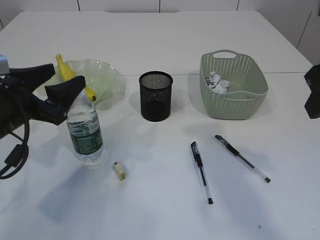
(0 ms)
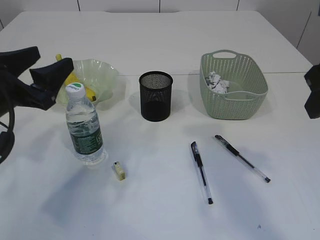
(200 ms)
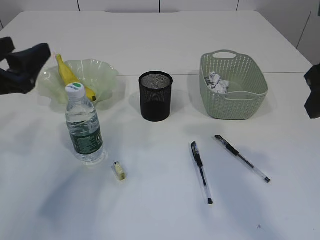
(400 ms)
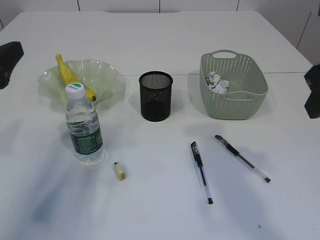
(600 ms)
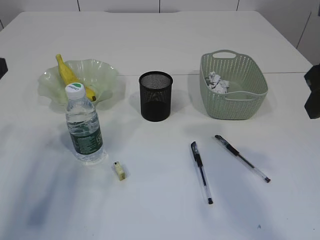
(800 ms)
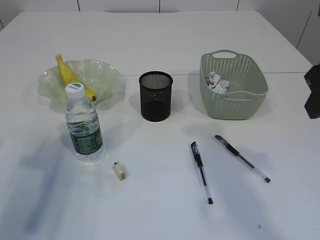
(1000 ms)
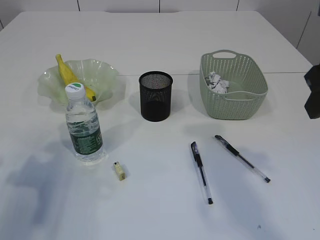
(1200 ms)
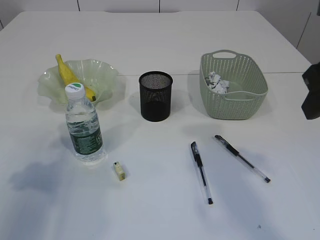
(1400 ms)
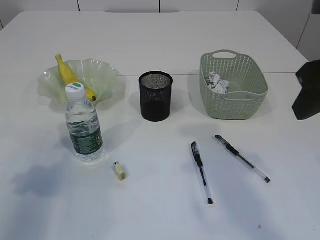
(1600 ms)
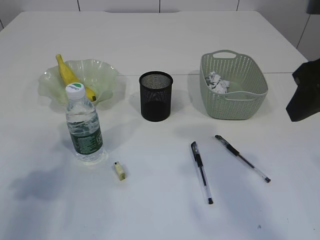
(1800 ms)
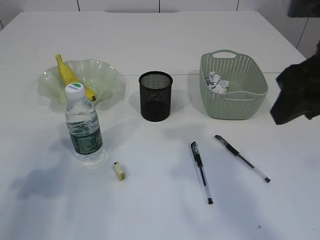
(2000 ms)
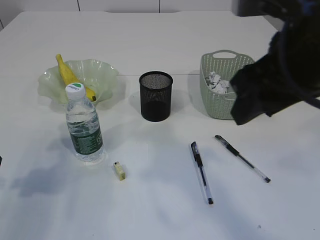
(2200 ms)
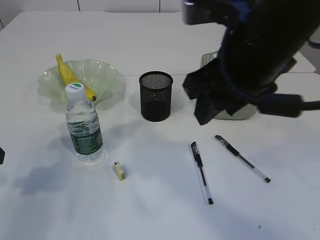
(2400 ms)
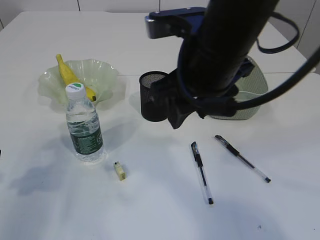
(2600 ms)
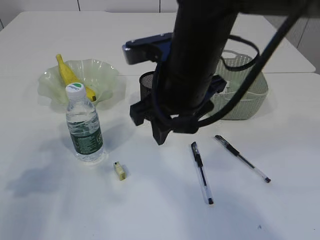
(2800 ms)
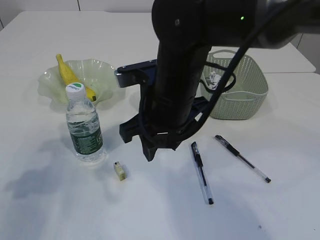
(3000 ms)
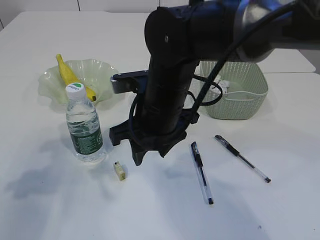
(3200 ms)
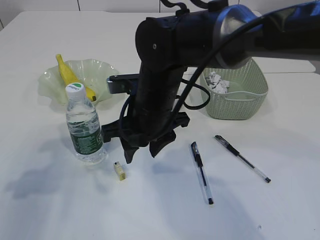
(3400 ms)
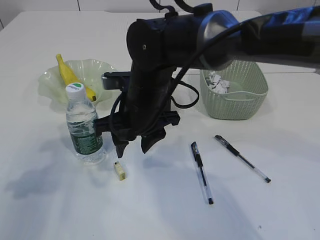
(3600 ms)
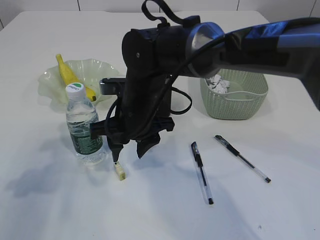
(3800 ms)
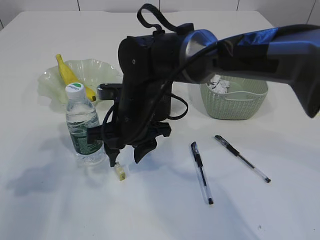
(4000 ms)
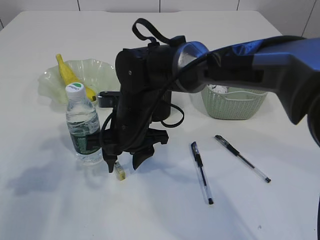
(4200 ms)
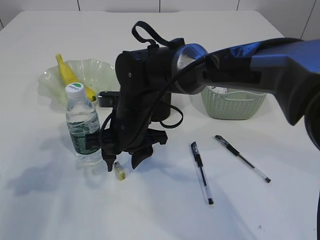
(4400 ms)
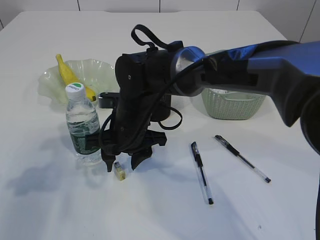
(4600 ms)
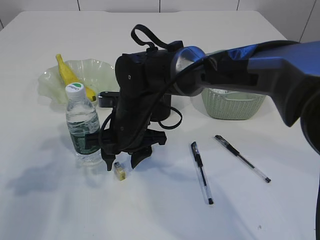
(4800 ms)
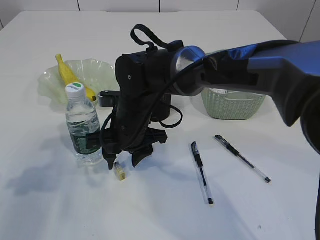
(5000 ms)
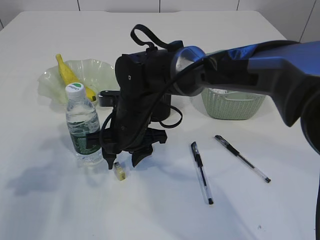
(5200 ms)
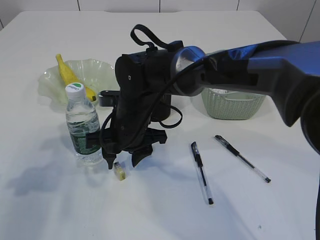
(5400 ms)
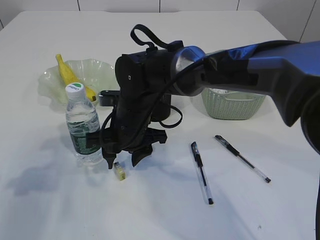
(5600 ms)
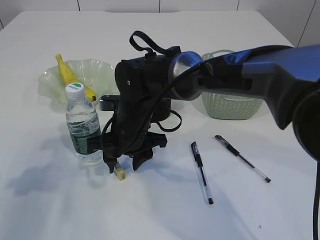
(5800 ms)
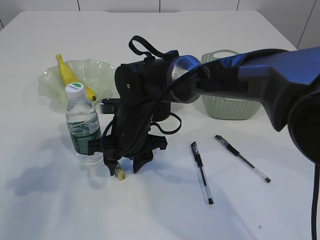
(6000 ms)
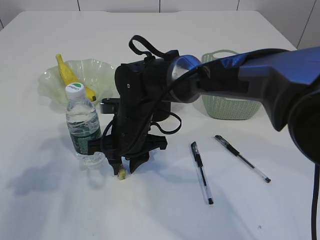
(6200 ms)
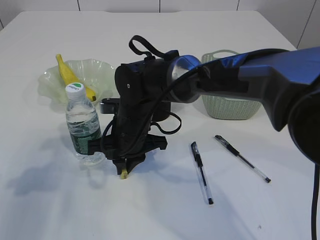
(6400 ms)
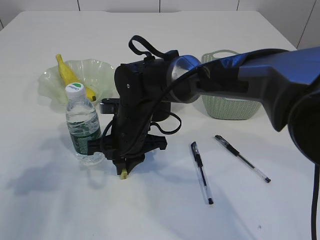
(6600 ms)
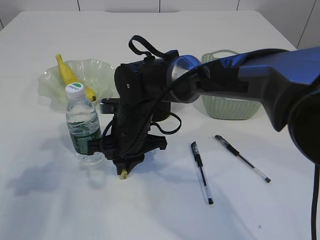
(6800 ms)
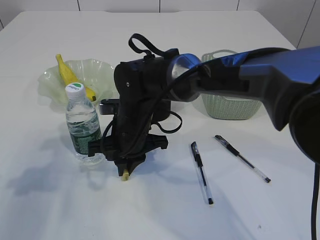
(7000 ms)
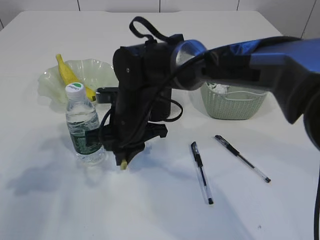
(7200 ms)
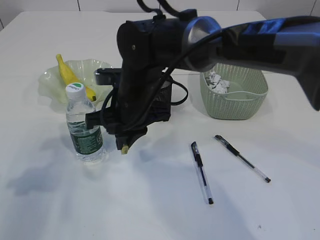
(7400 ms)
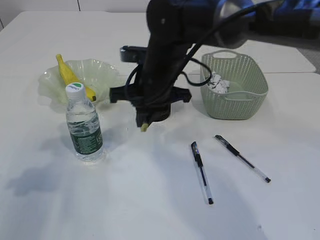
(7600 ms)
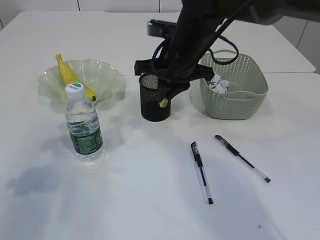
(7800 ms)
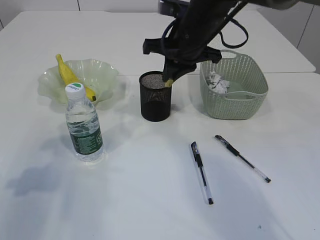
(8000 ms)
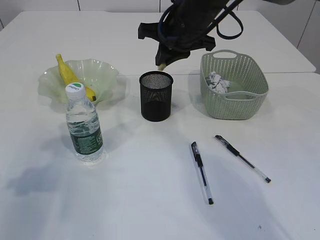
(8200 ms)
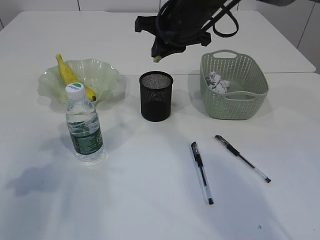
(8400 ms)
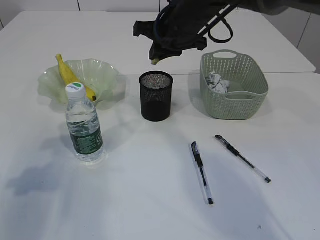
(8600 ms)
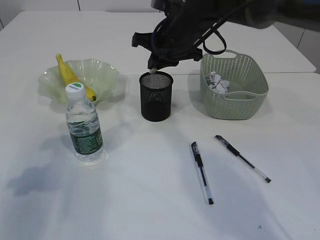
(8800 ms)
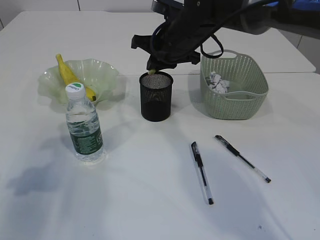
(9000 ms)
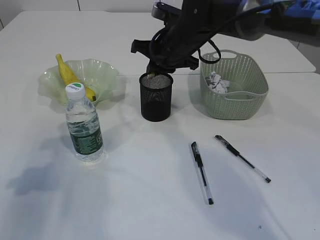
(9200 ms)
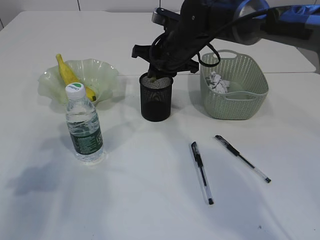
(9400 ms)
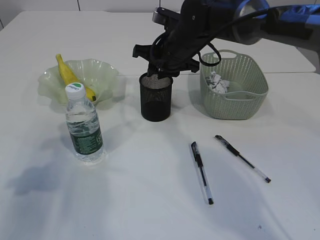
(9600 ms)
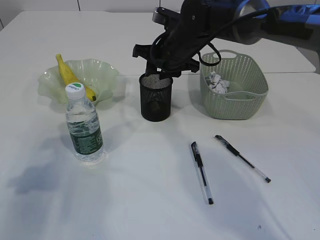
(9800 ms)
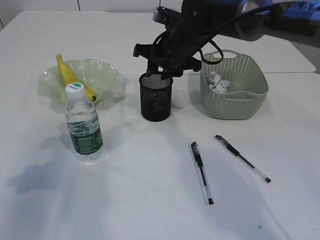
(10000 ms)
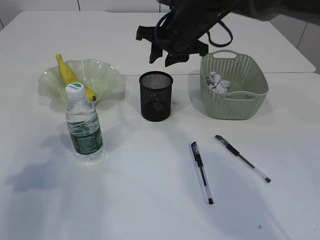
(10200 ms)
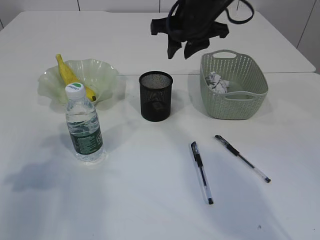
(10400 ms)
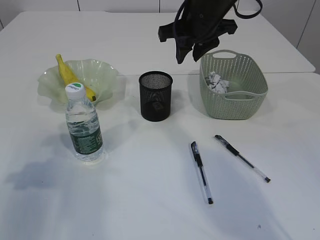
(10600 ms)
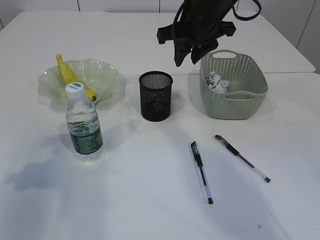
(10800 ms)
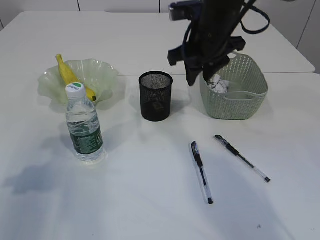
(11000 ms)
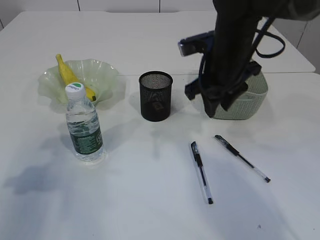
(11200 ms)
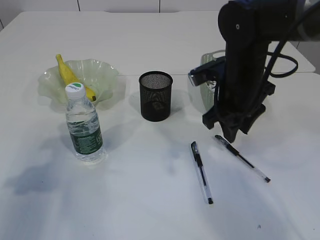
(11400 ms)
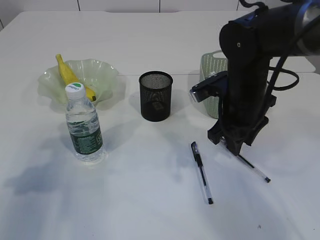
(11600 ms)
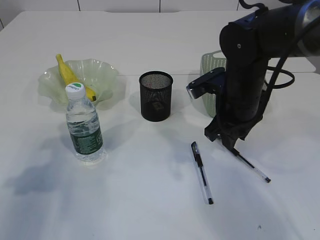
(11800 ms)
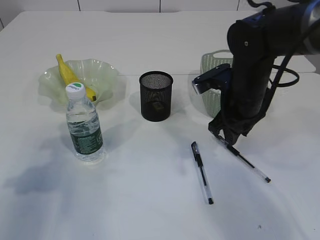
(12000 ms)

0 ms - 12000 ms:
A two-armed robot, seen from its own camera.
Step, 0 ms - 7400 ms: Pick up the eraser.
Step, 7600 ms - 10200 ms: Place the eraser into the pen holder.
0 ms - 1600 ms: The left gripper heads to the left, backward and upward, covering roughly 10 cm.
1600 ms - 3000 ms: The right gripper shifts approximately 25 cm to the left, downward and forward.
3000 ms - 4400 ms: The right gripper heads downward and to the left, covering roughly 10 cm.
4400 ms - 6000 ms: The grippers make only small movements.
6000 ms - 7600 ms: The right gripper heads upward, covering roughly 10 cm, and closes up.
7600 ms - 9000 ms: The right gripper goes some 10 cm forward and to the right.
9000 ms - 10400 ms: The right gripper heads upward, covering approximately 5 cm, and opens up.
10400 ms - 12000 ms: The right gripper heads downward, backward and to the right, covering some 15 cm.

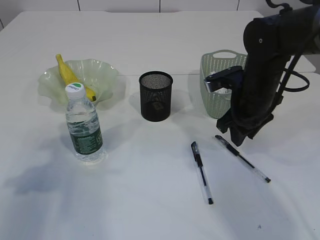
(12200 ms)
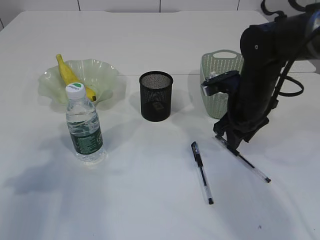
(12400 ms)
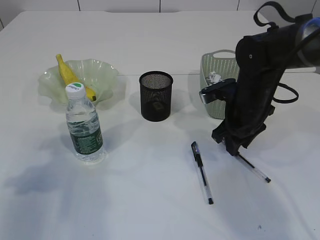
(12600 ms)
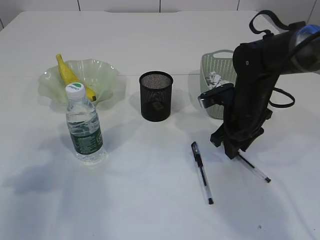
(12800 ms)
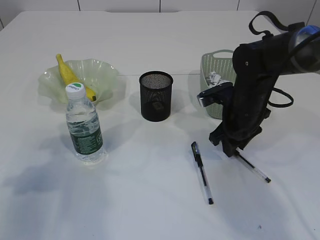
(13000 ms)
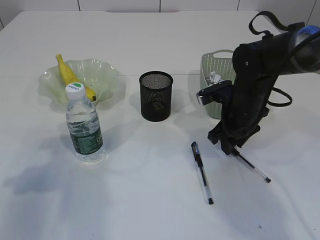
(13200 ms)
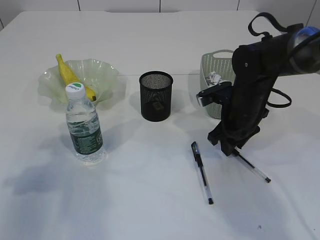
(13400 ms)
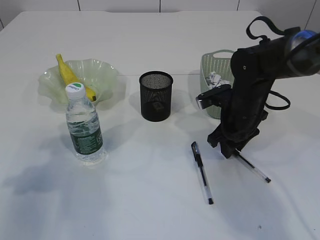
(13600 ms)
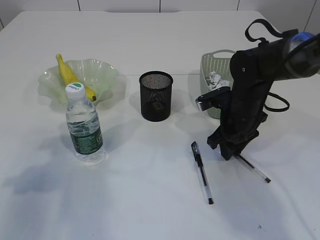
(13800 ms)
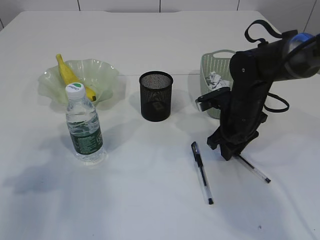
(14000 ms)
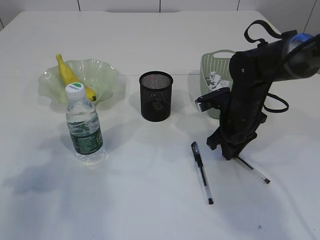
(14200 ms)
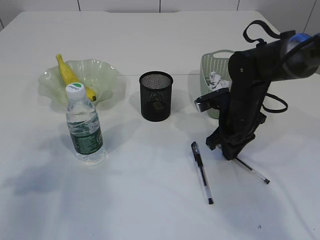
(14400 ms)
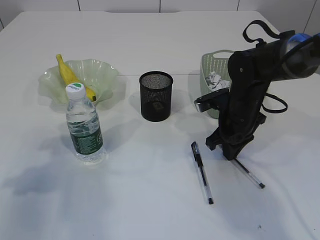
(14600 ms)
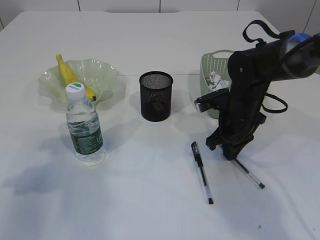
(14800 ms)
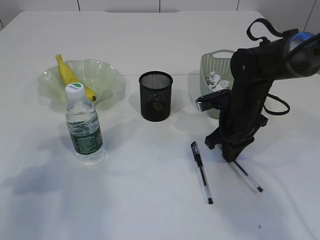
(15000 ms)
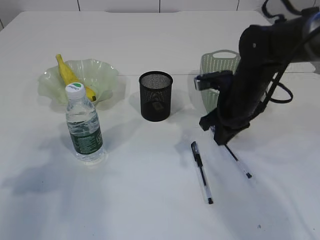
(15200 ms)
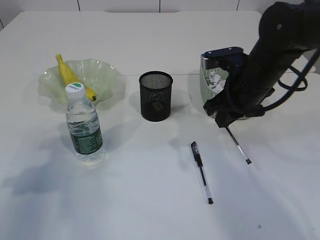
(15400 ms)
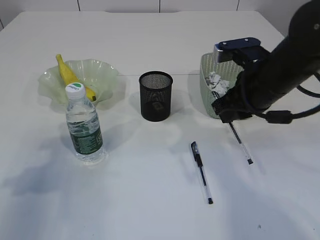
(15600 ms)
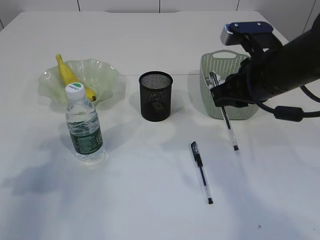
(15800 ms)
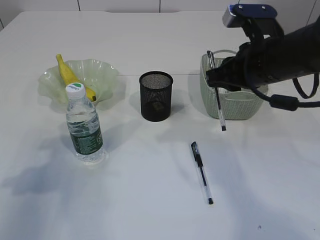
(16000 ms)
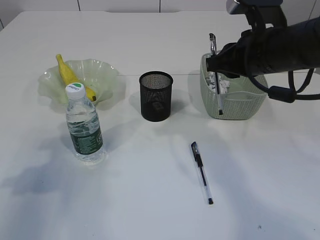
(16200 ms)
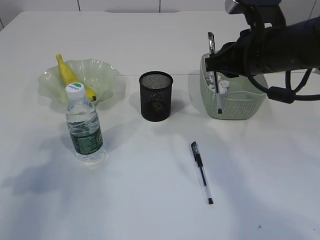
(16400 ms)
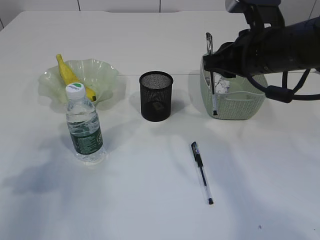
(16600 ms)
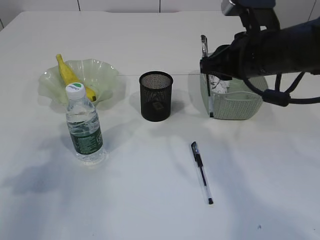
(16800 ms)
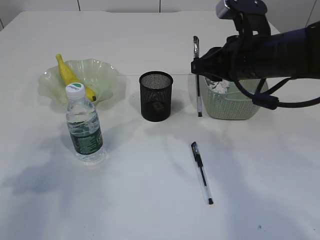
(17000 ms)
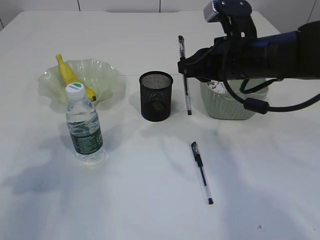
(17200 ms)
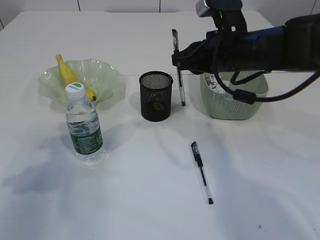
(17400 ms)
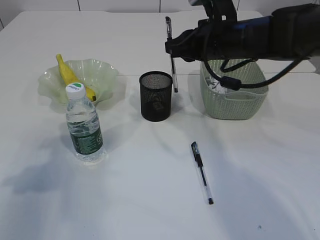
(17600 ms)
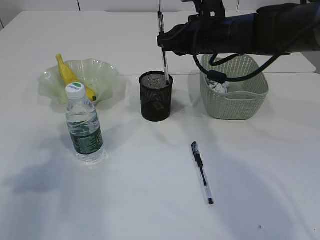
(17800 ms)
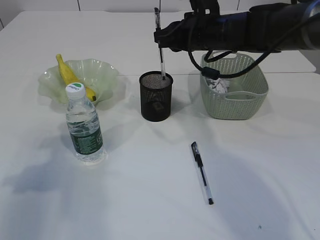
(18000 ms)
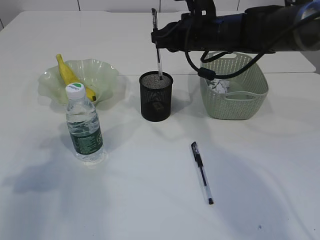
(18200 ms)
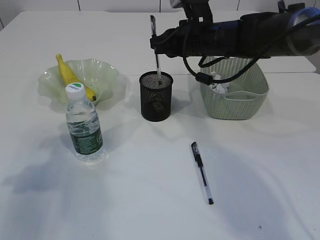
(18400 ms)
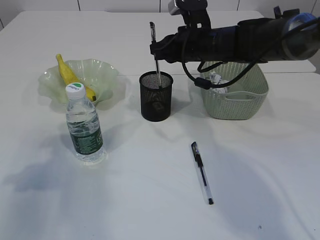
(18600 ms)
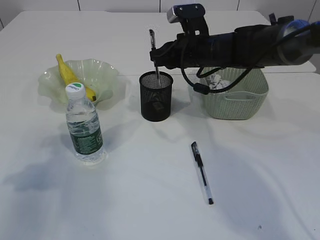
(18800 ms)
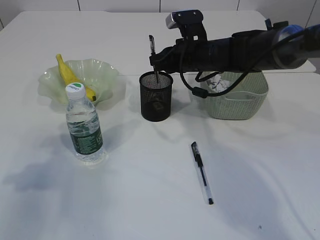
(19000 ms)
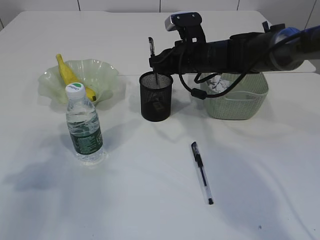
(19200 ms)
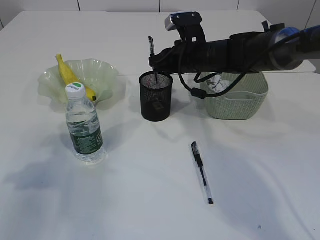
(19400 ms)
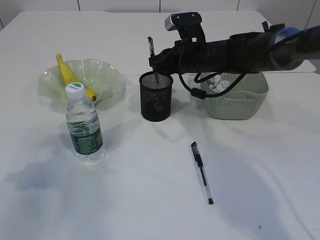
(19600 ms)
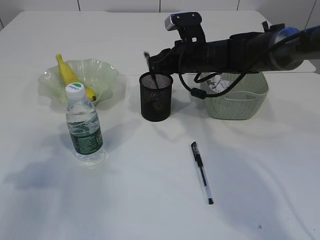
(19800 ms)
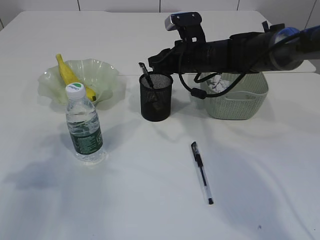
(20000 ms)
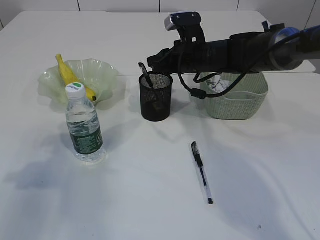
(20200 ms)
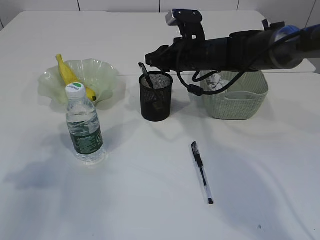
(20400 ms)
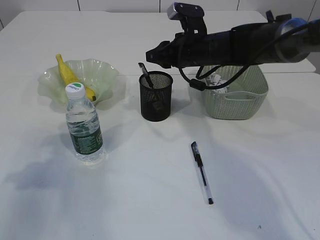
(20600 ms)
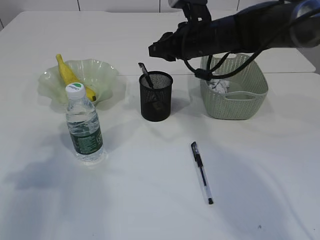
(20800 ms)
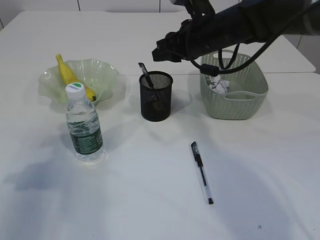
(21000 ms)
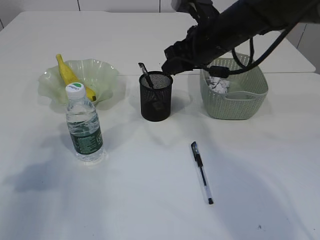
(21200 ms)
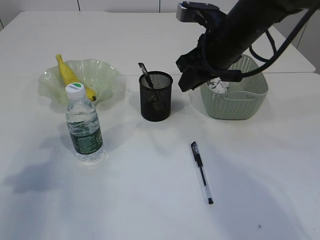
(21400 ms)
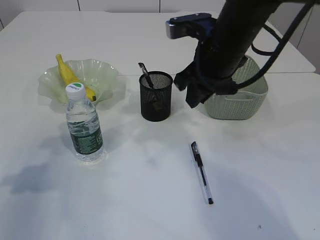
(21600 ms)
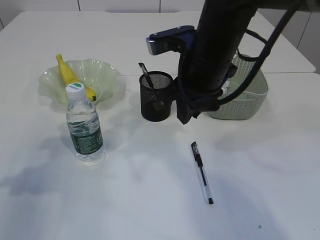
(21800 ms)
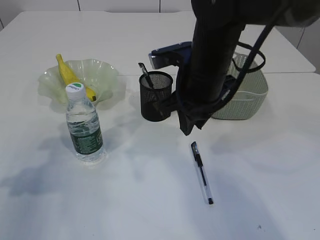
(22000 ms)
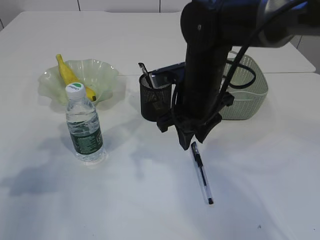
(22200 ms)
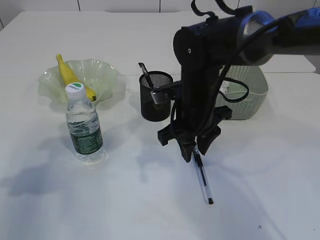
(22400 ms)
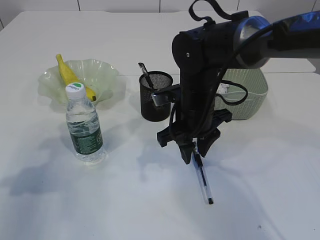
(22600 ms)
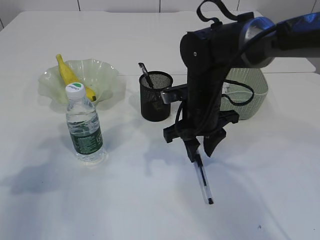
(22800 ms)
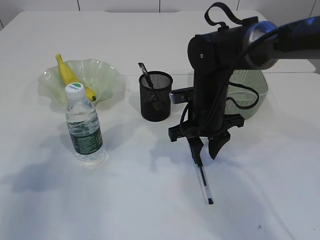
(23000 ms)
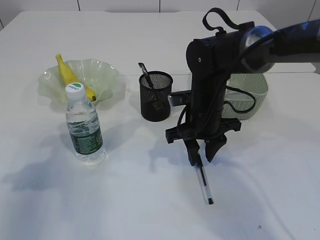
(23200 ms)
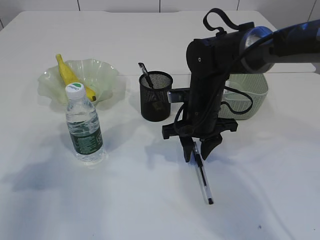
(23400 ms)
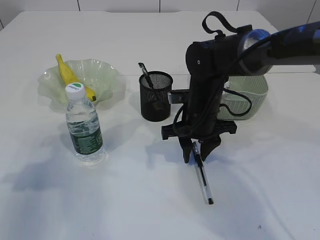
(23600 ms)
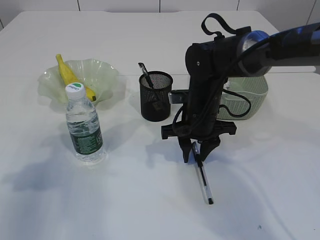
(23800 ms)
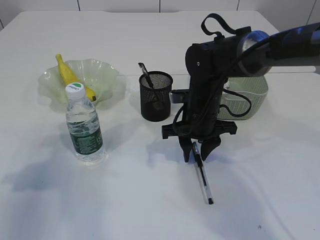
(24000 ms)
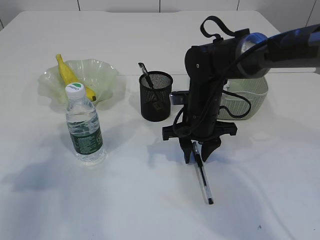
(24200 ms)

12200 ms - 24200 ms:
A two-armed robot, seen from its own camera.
Step, 12200 ms - 15200 ms: Pick up the pen with right arm.
Step, 15400 ms - 20600 ms: Place the pen into the pen holder.
12200 ms - 13800 ms: The right gripper goes approximately 5 cm downward.
13800 ms - 15200 ms: The right gripper closes.
15200 ms - 16600 ms: The right gripper moves upward, roughly 10 cm.
16600 ms - 18200 ms: The right gripper goes roughly 15 cm forward and to the left.
18200 ms - 19800 ms: The right gripper is displaced downward by approximately 5 cm.
19800 ms - 21200 ms: The right gripper goes roughly 10 cm upward and backward.
21200 ms - 22600 ms: The right gripper heads downward and backward, covering some 10 cm.
22600 ms - 24200 ms: The grippers stay close to where they were, moving slightly.
